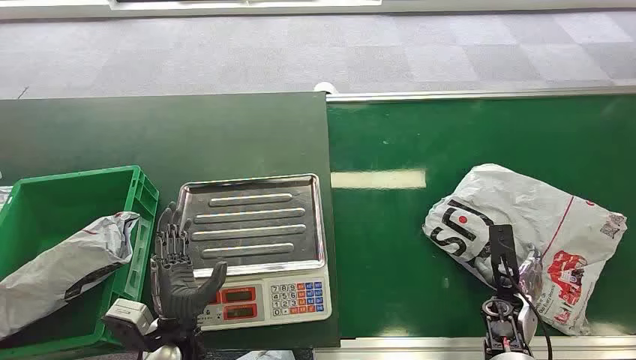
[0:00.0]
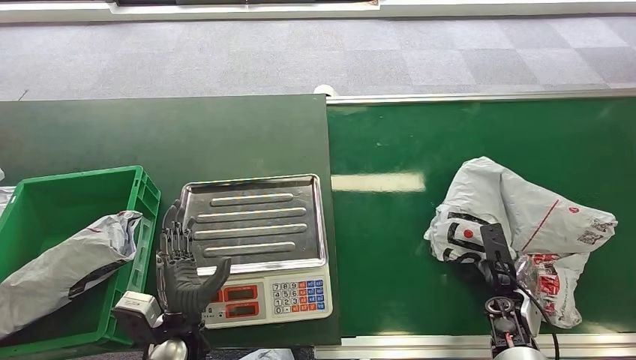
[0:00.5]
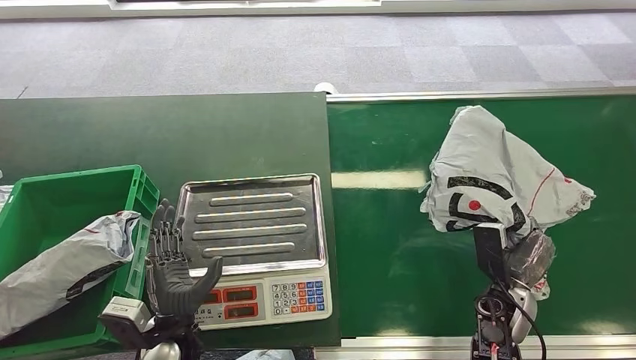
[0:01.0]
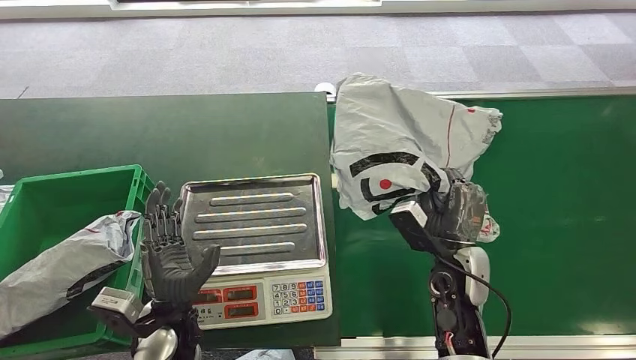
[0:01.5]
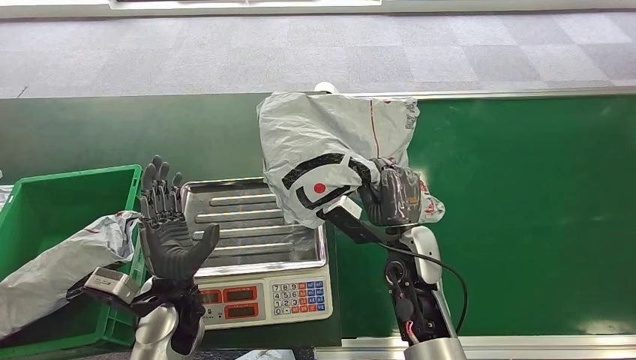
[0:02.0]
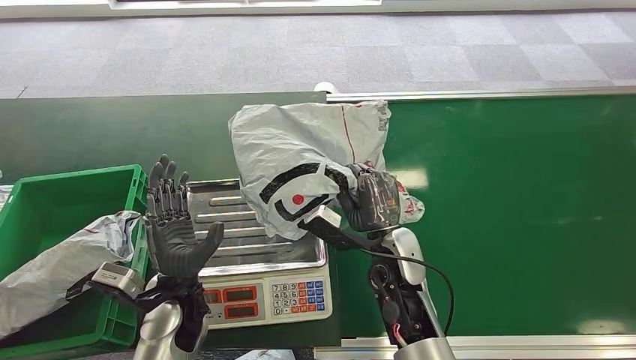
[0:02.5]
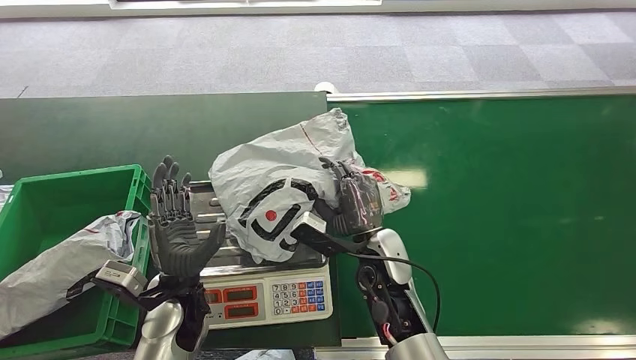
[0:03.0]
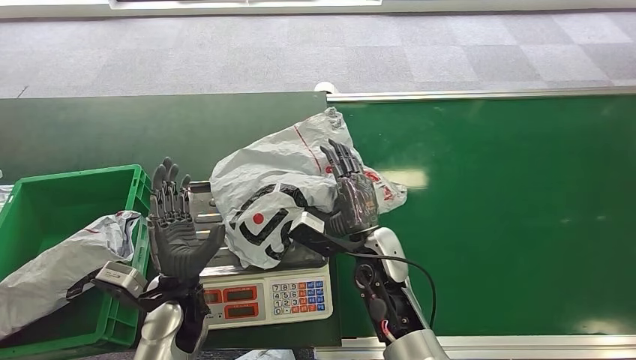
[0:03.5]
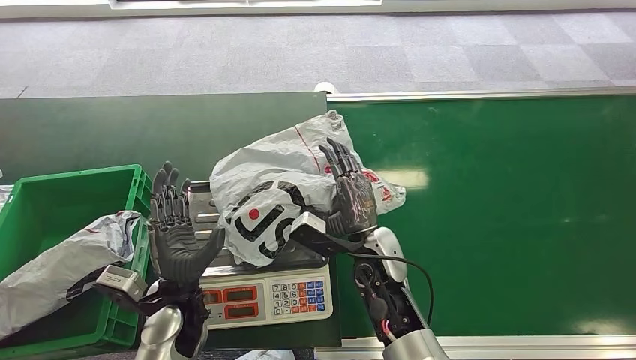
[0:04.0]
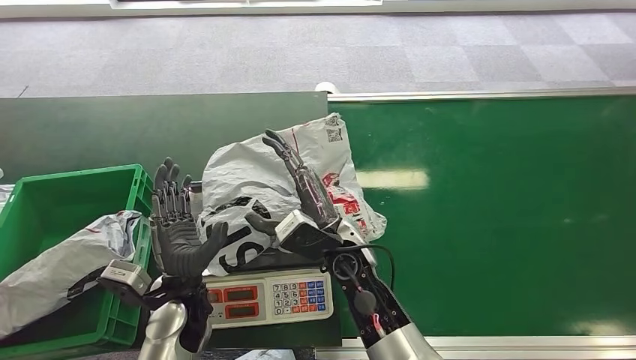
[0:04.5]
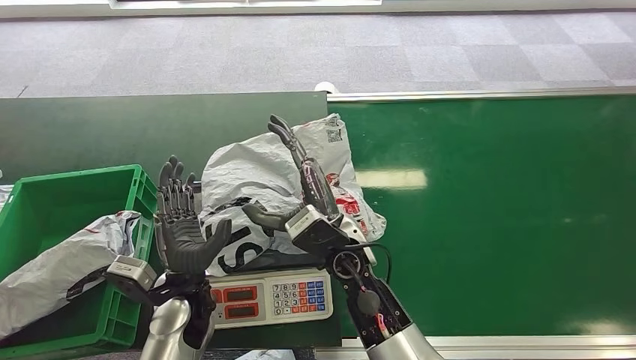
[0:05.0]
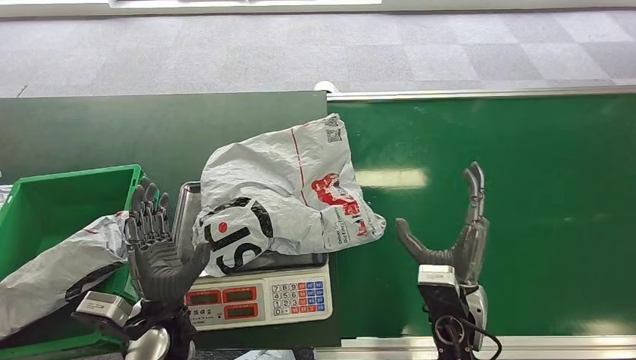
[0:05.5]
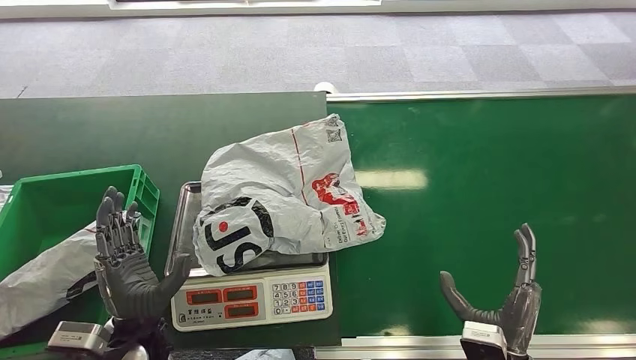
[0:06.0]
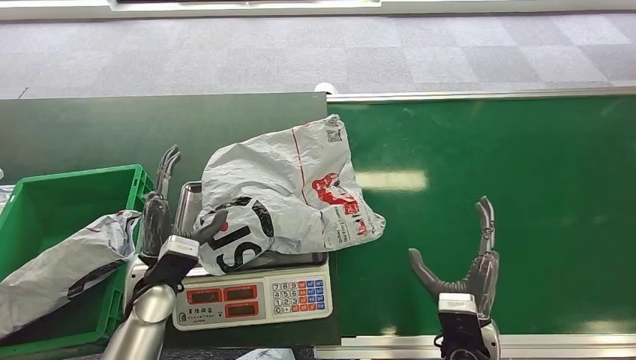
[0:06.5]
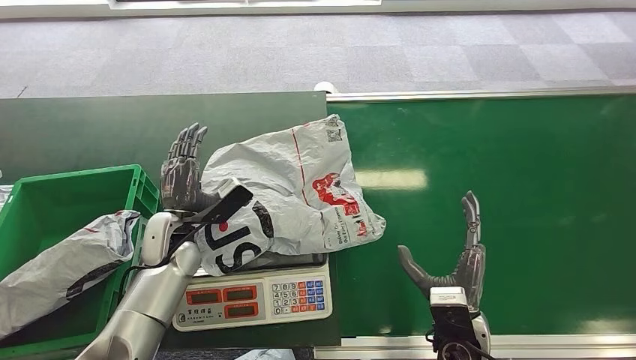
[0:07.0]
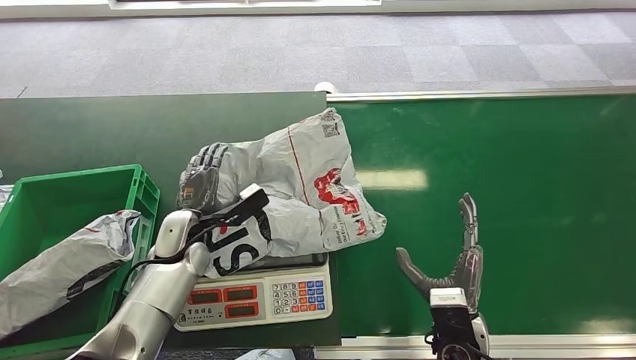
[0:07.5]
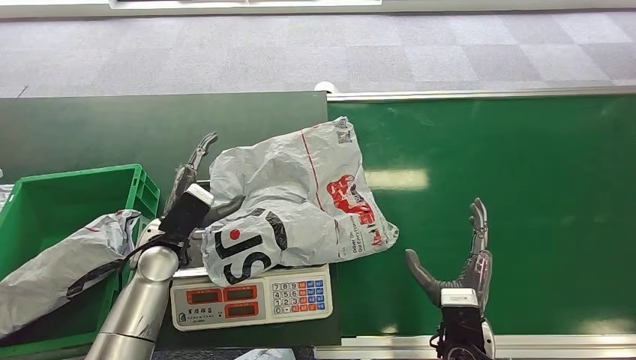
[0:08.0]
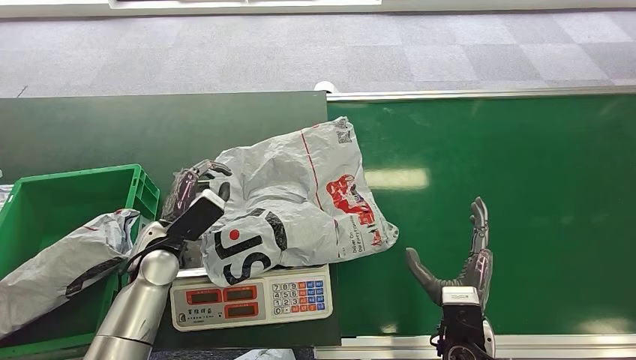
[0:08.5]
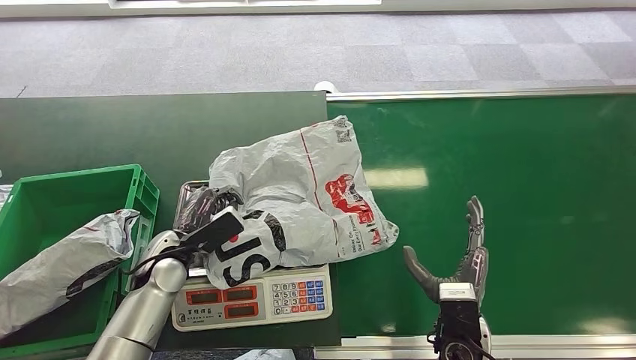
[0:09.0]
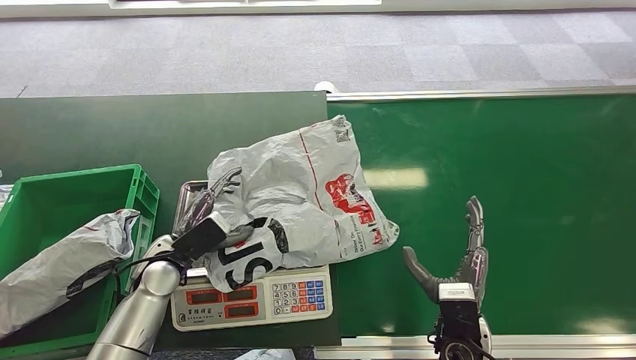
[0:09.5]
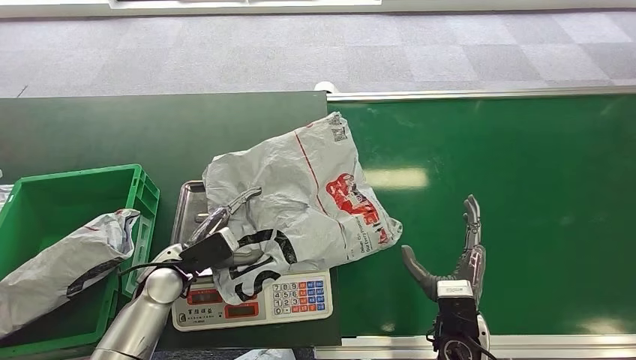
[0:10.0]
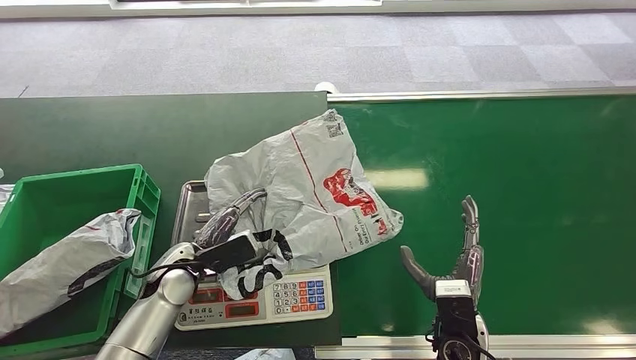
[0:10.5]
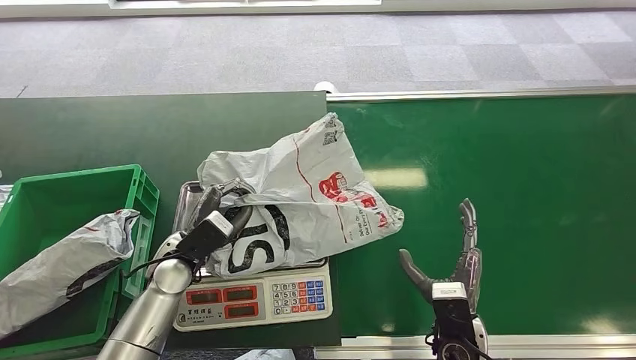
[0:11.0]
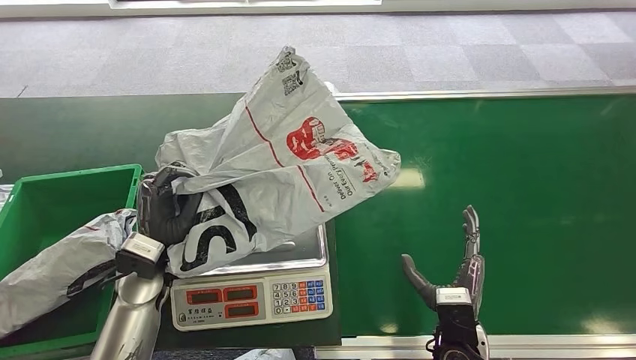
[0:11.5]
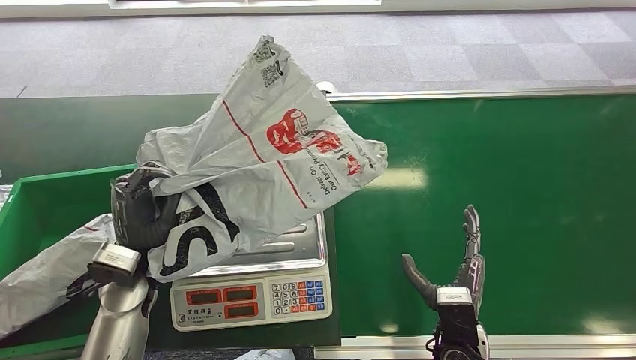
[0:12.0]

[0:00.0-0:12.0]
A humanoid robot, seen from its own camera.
Task of the whole recording: Weigh the package on the weighing device and place it in the left basket.
Step, 0:00.0 to 0:01.0: Pick up the package from the conveyor belt.
Step, 0:03.0 to 0:04.5: Place the package onto the inbound machine.
0:02.0 to 0:04.0: The right hand heads to the left, covering some 5 cm.
0:04.0 to 0:06.0: The right hand moves backward and to the right, some 25 cm; the left hand moves backward, approximately 5 cm.
0:06.0 to 0:08.0: The right hand moves roughly 5 cm. Meanwhile the left hand moves forward, roughly 15 cm.
0:08.0 to 0:10.0: The left hand moves approximately 5 cm.
0:10.0 to 0:12.0: The left hand goes some 5 cm upward.

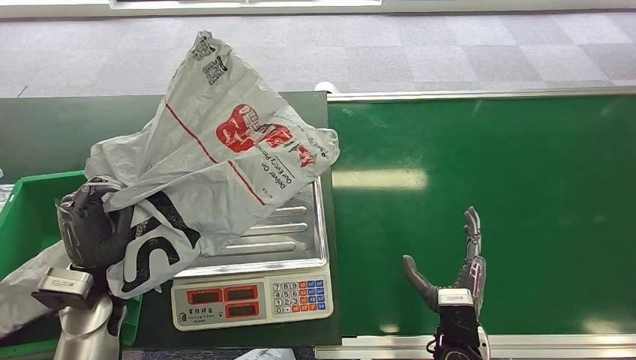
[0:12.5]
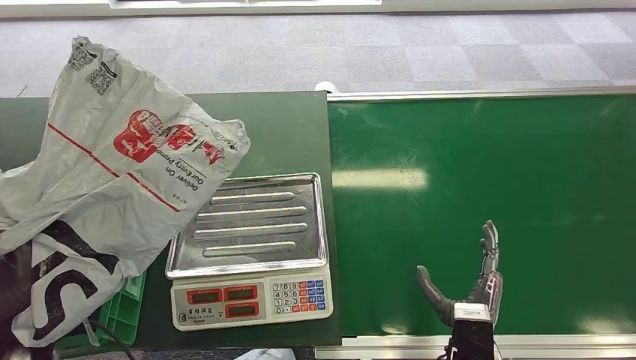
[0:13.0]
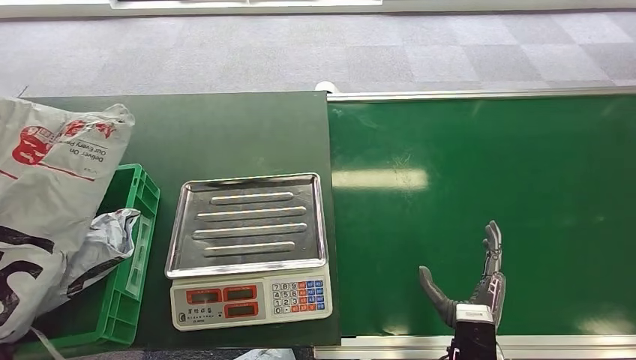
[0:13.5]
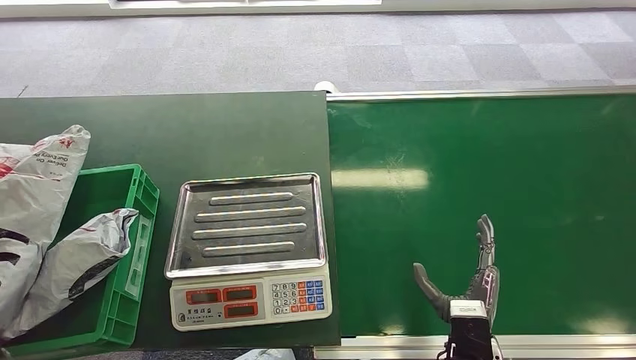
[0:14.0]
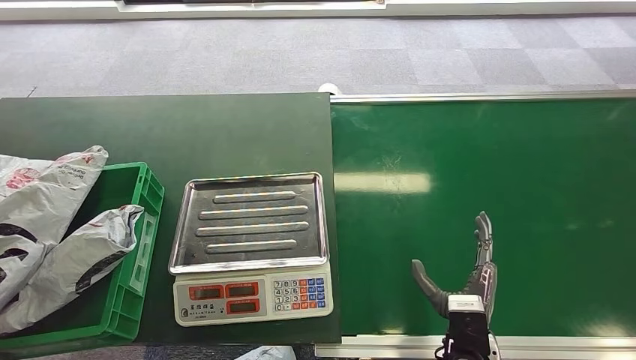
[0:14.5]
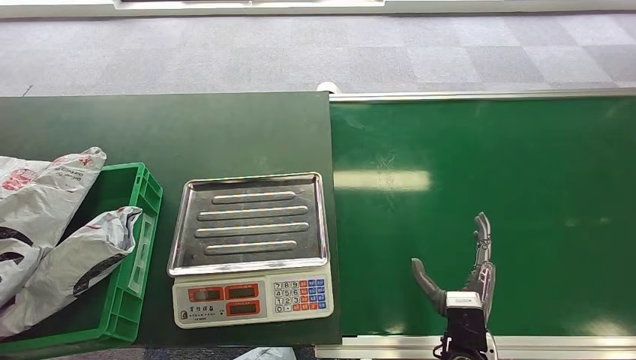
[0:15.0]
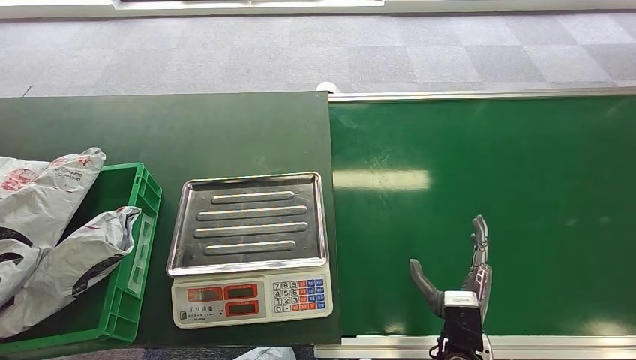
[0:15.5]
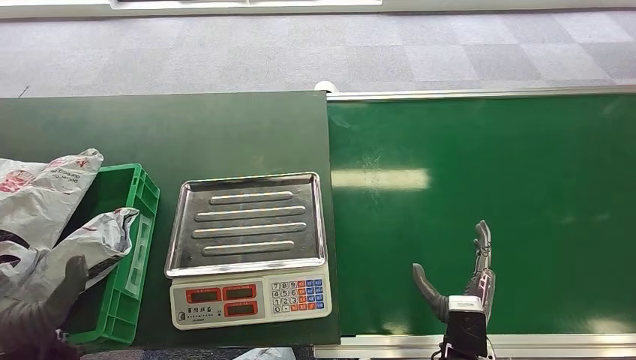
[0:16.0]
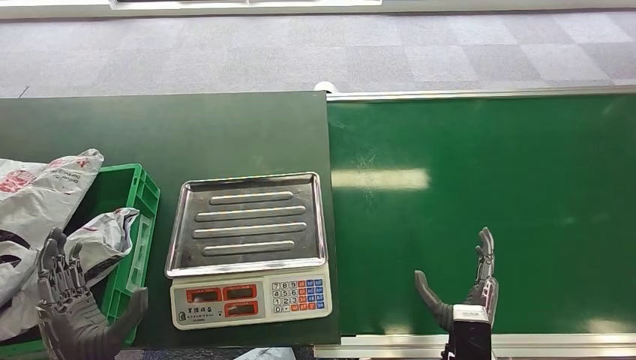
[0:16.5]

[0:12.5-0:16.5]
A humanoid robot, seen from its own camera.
Task of the whole recording: Weigh the package on the weighing device and place it in the left basket.
Step, 0:13.5 to 0:16.5: Place the package into the parcel locker.
0:14.5 to 0:16.5: The left hand shifts roughly 25 cm to the right.
